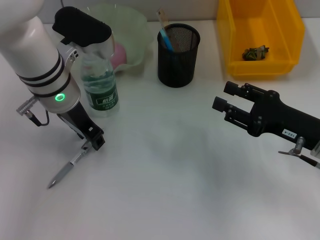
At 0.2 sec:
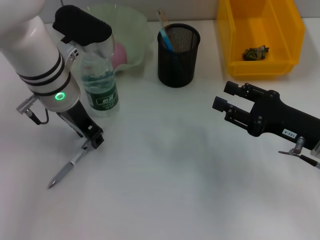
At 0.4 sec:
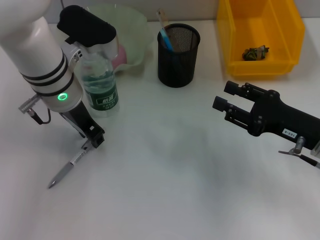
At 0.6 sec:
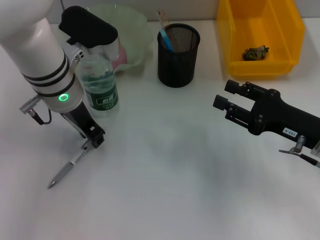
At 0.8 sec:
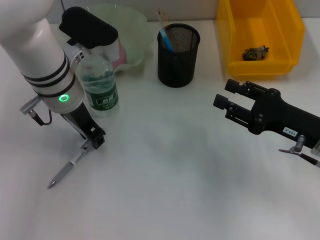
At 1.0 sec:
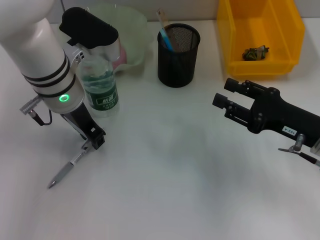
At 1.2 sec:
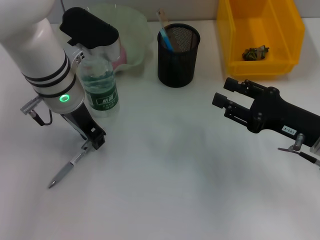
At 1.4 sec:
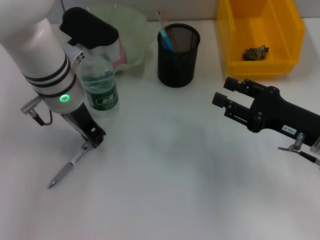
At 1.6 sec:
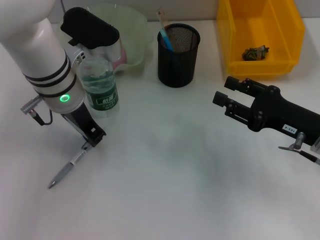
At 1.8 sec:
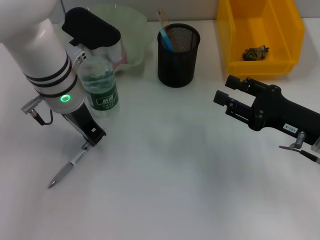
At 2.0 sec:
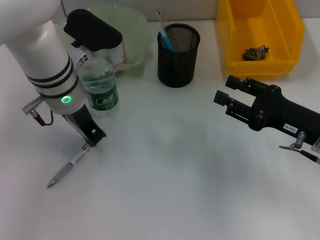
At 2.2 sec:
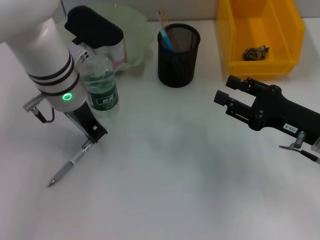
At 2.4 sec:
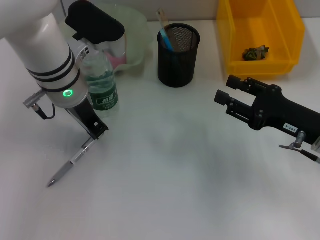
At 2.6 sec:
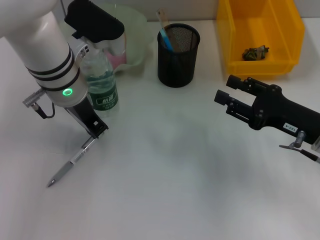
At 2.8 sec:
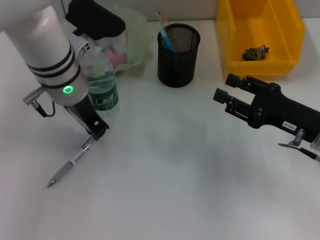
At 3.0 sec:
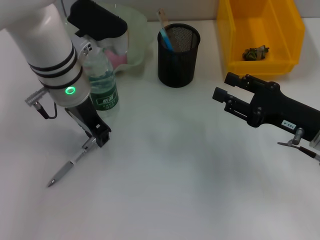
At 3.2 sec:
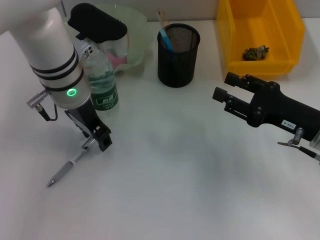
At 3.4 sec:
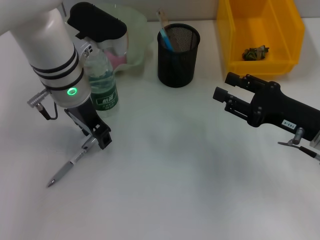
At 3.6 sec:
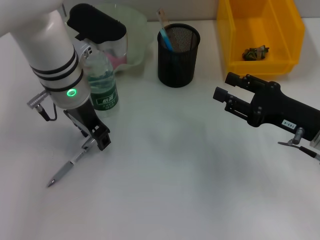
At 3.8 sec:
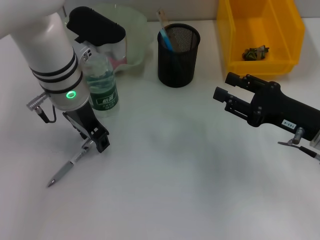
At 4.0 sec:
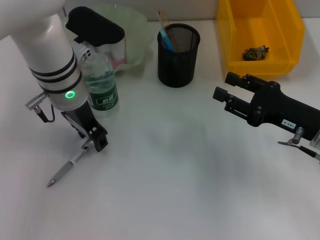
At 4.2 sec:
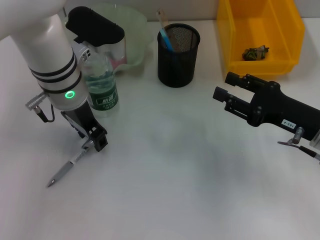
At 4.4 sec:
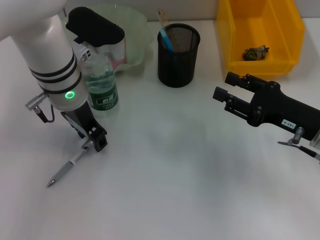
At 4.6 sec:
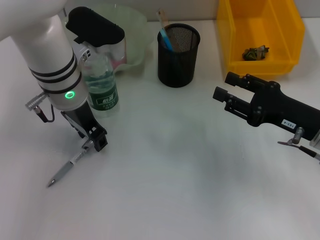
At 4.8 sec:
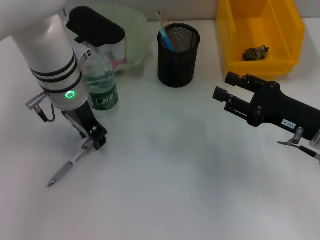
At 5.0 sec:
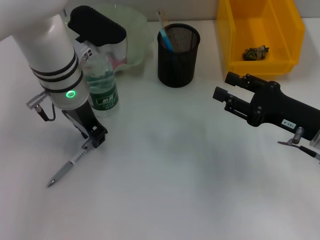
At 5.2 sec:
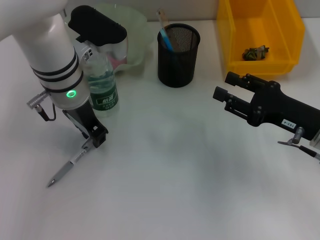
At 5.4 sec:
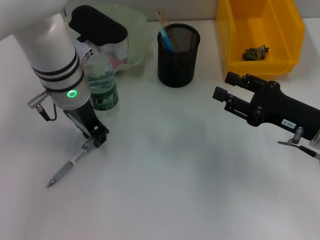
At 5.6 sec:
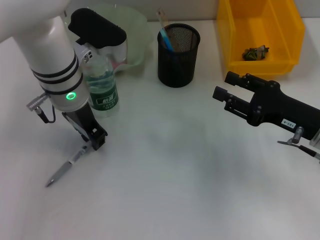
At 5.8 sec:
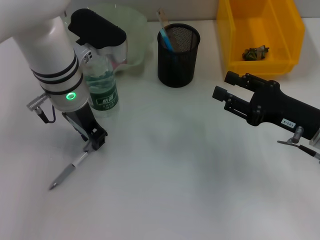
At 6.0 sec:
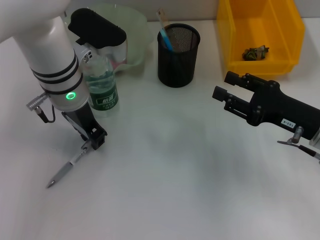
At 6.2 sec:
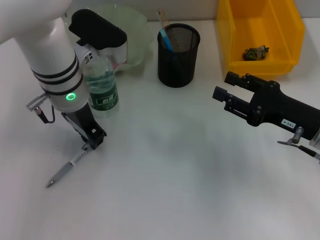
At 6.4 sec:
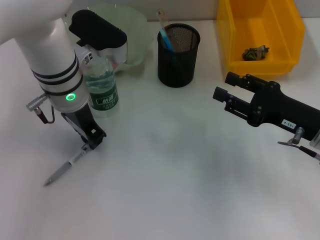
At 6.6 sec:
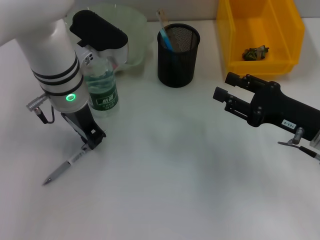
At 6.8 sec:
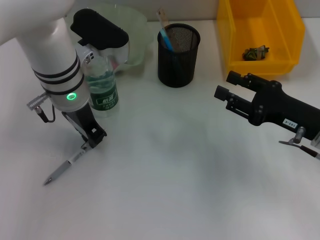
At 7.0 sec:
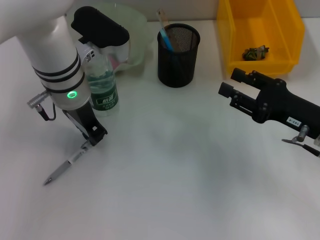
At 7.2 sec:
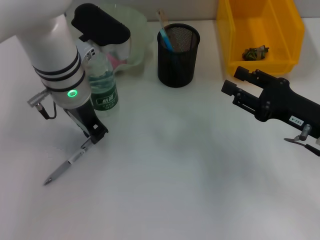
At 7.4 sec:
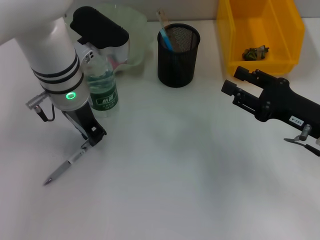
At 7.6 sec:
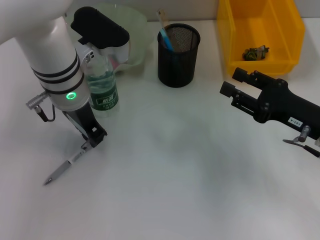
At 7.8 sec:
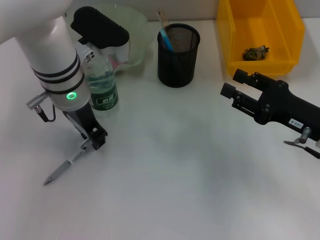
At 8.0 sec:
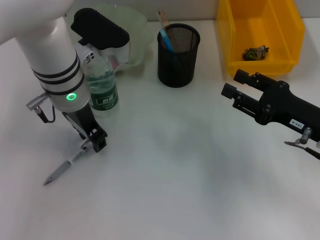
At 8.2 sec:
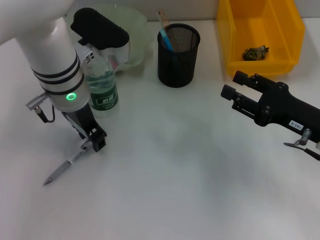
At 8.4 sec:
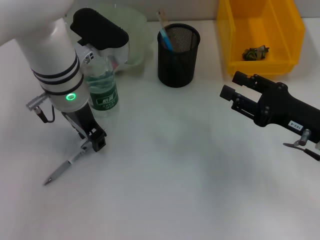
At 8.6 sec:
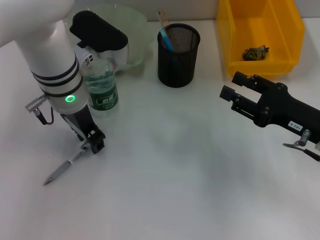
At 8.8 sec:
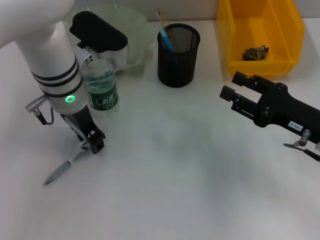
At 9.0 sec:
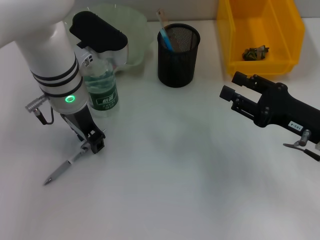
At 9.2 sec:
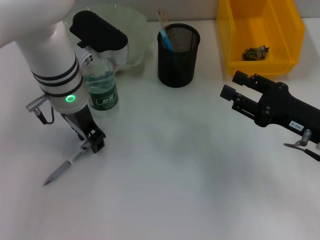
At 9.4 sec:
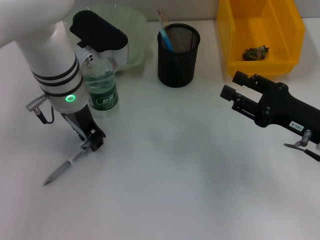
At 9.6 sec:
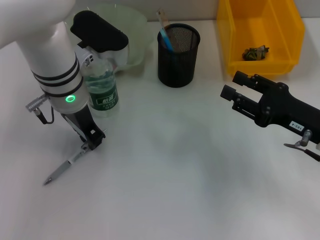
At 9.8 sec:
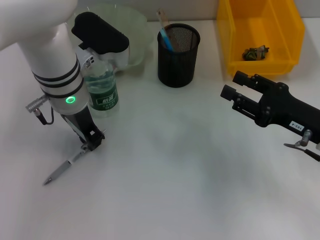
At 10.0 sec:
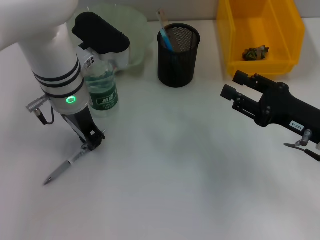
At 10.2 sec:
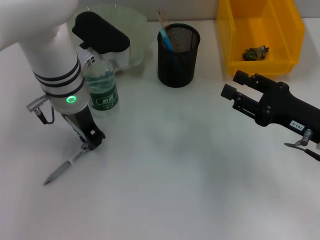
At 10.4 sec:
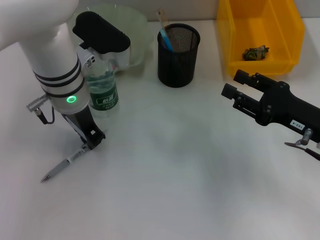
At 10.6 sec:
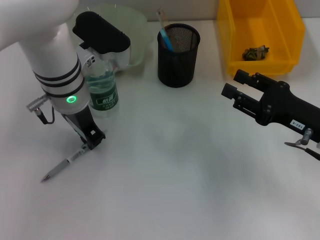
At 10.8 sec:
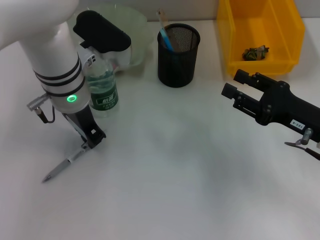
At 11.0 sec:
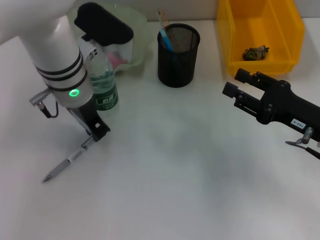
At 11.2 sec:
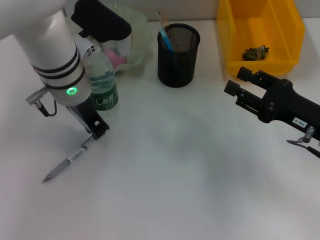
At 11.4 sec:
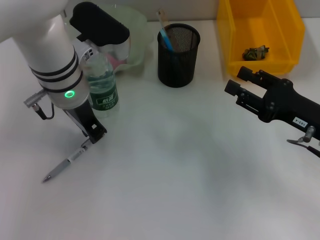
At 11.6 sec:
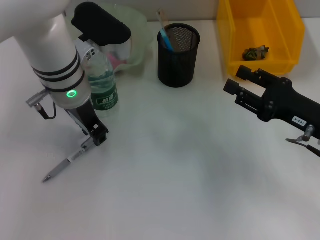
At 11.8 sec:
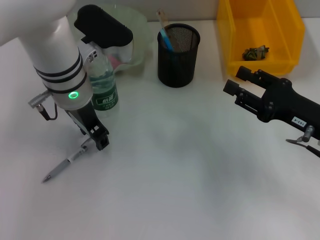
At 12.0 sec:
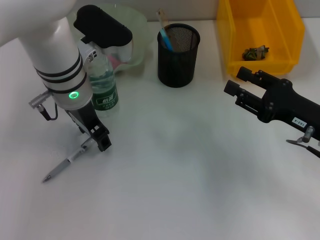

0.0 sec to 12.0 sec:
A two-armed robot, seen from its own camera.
0.0 sec to 1.6 sec: Neither gripper changes place.
1.6 sec to 3.0 sec: There are only small adjustments of the grippers.
3.0 sec to 4.4 sec: The left gripper opens.
4.4 sec to 6.0 sec: The left gripper closes its fingers.
6.0 sec to 7.6 sec: Both grippers stay about where they are.
7.6 sec to 9.0 sec: The left gripper opens its fingers.
9.0 sec to 10.4 sec: Neither gripper changes place.
10.4 sec to 12.0 sec: The left gripper opens up.

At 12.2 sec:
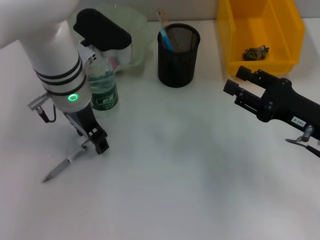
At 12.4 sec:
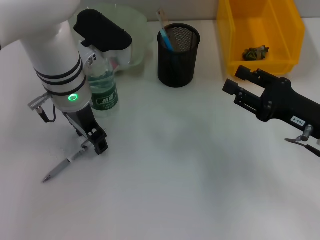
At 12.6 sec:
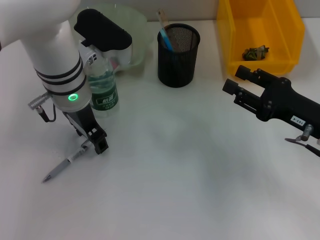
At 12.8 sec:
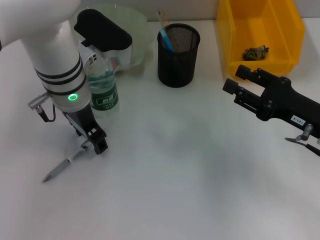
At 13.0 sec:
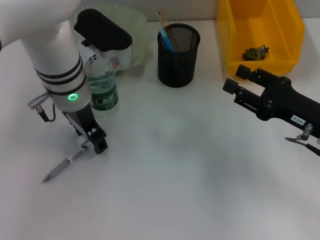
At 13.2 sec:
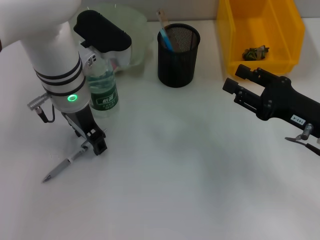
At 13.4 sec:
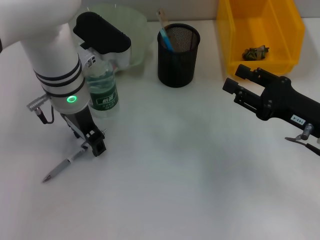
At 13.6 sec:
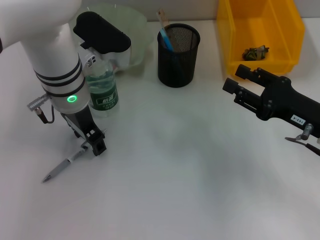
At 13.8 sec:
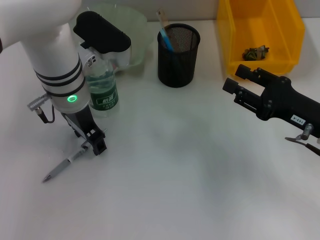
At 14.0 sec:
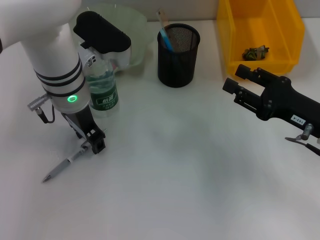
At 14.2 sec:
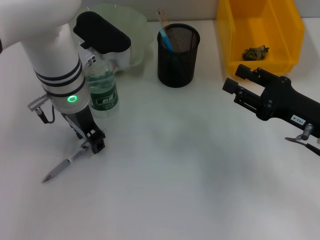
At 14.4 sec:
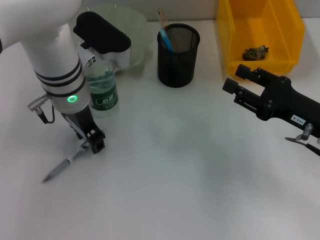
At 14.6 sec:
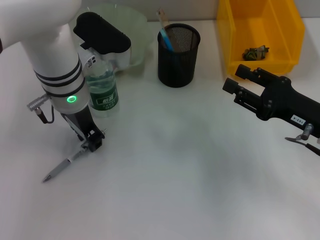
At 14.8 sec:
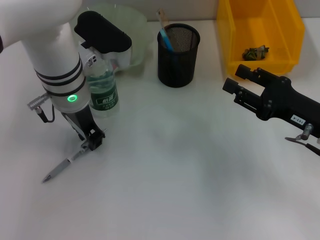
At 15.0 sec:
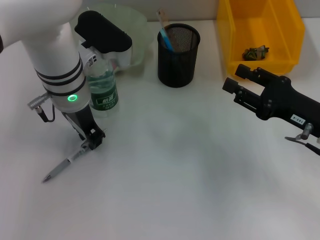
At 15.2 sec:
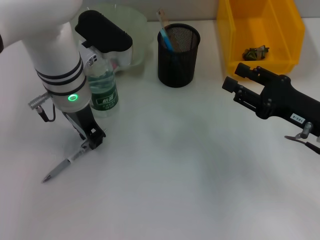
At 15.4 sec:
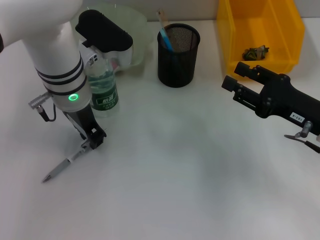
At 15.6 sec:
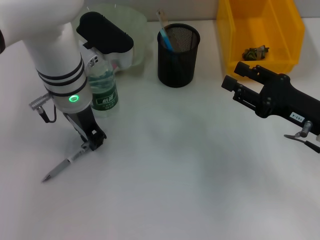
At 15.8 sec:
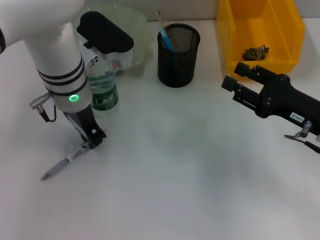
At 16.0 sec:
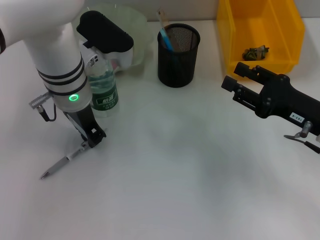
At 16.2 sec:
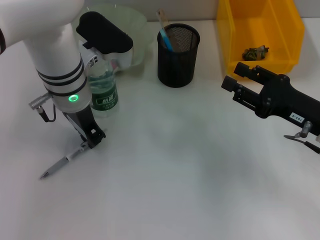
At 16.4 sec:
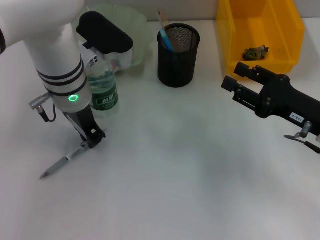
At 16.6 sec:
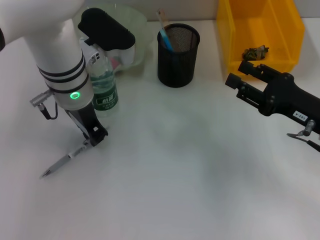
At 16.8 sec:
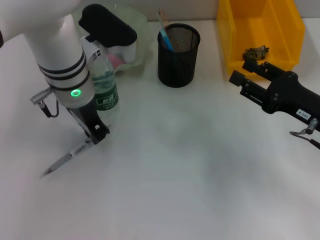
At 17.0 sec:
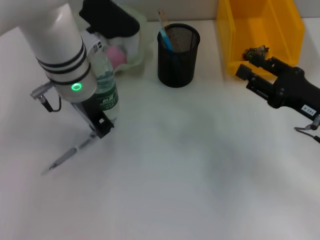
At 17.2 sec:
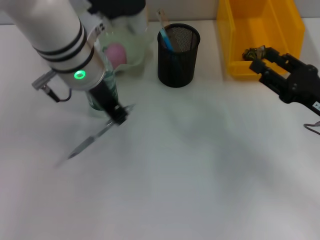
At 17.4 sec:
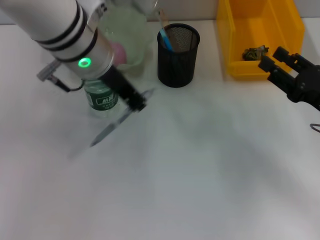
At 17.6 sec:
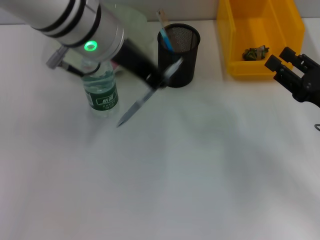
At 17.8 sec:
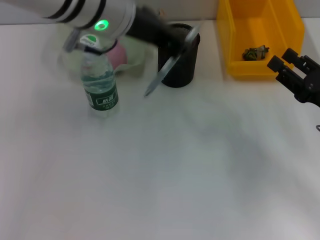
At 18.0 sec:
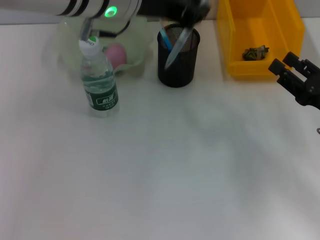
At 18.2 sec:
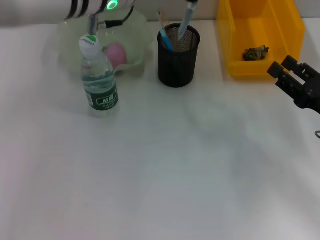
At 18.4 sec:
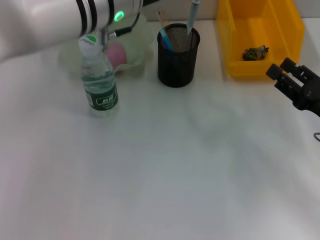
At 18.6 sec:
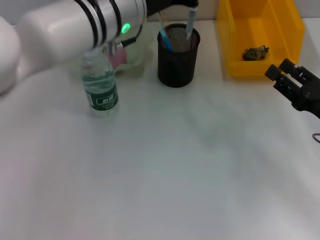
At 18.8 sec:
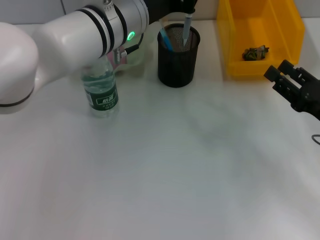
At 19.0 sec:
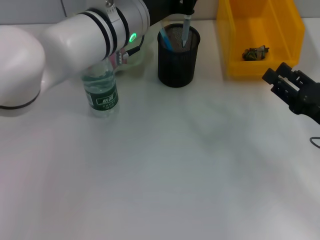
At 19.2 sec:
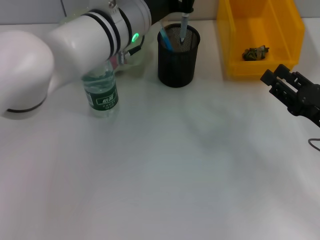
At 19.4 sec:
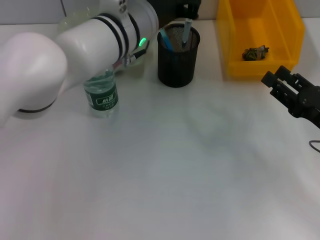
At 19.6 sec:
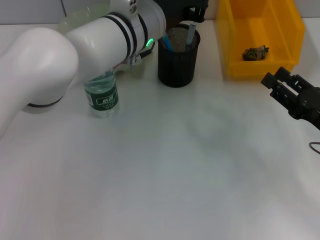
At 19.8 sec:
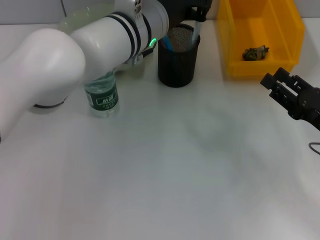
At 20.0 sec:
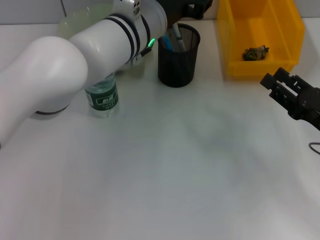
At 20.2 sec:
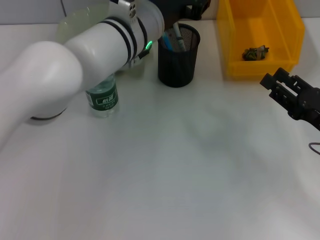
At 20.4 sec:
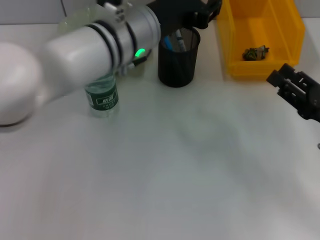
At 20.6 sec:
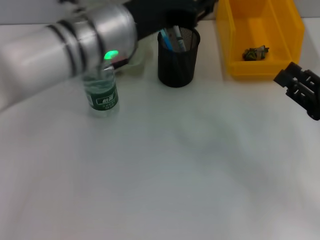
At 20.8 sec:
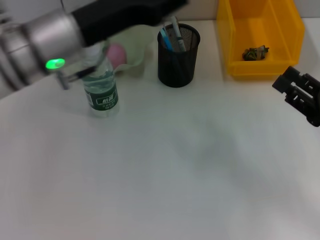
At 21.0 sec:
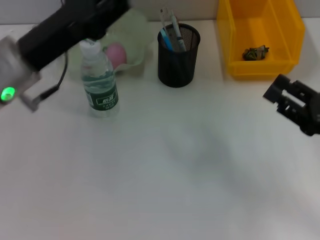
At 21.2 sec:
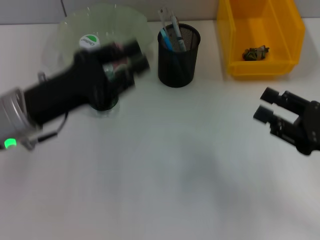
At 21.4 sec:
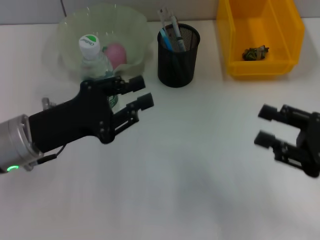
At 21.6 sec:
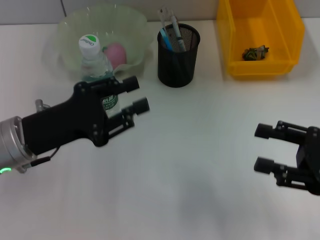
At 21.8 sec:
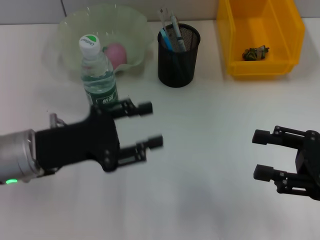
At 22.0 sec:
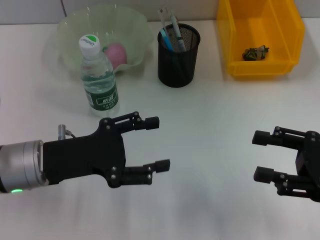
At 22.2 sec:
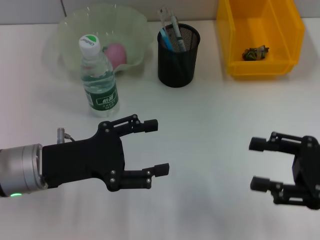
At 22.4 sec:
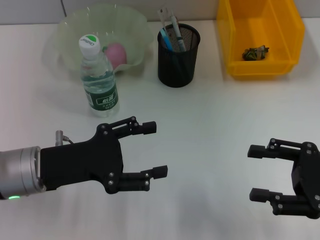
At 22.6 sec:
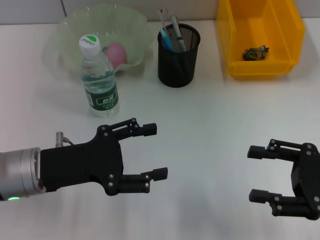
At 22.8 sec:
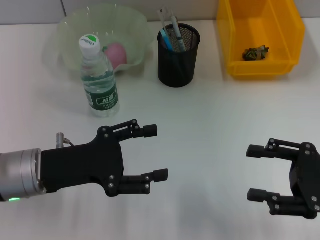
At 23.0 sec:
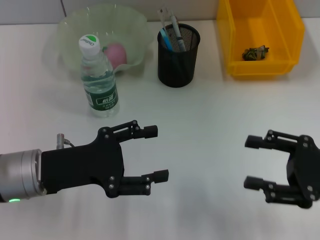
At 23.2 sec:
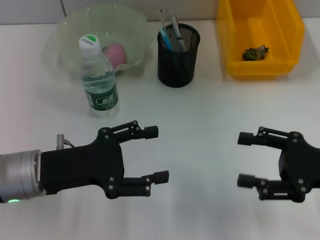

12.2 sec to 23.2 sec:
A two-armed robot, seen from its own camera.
Step, 12.2 sec to 16.4 sec: Grab the gray spring-action pen with the left hand.
Step, 16.6 sec to 20.8 sec: Place the gray spring-action pen into the pen holder with the left hand.
12.2 sec to 13.8 sec: Neither gripper changes place.
13.8 sec to 15.4 sec: The left gripper closes its fingers.
15.4 sec to 17.0 sec: The grippers stay close to where they were, moving slightly.
18.4 sec to 20.0 sec: The left gripper is displaced downward by roughly 5 cm.
20.0 sec to 21.6 sec: The left gripper travels to the left and backward by roughly 20 cm, while the right gripper shifts by about 5 cm.
21.6 sec to 23.2 sec: The left gripper opens its fingers.
